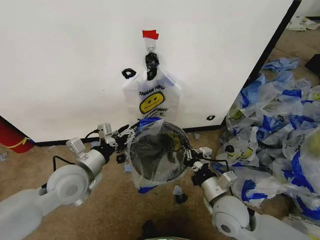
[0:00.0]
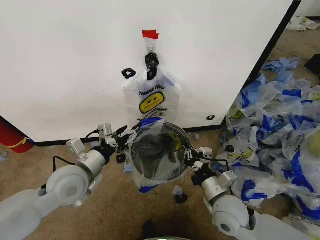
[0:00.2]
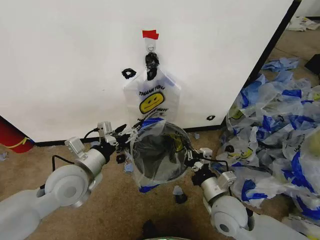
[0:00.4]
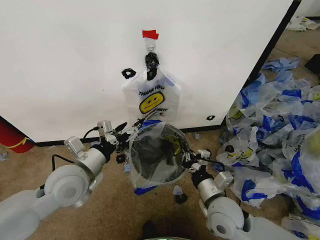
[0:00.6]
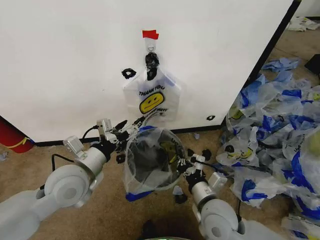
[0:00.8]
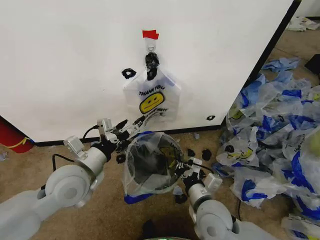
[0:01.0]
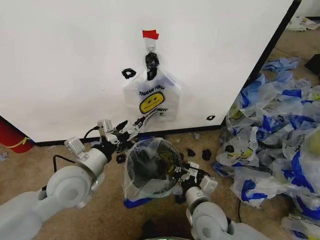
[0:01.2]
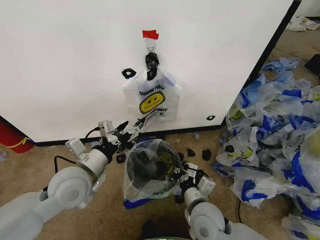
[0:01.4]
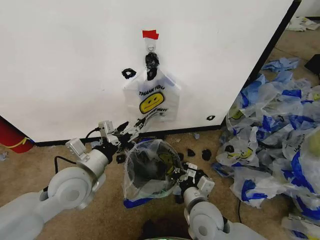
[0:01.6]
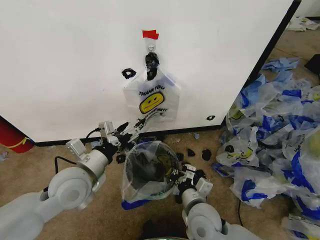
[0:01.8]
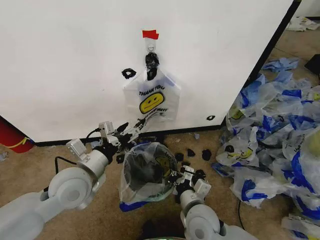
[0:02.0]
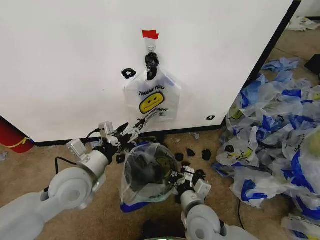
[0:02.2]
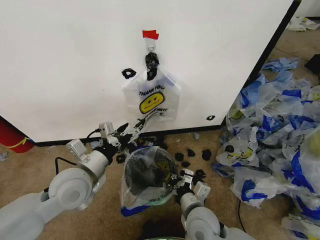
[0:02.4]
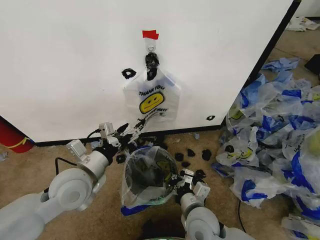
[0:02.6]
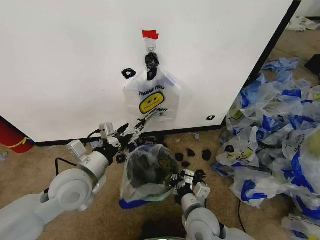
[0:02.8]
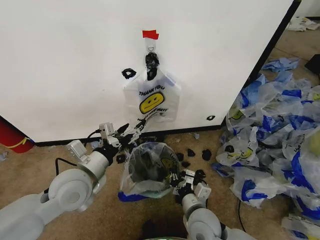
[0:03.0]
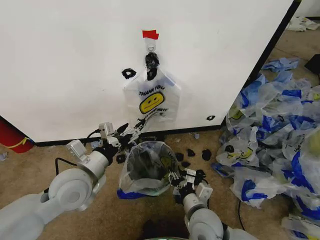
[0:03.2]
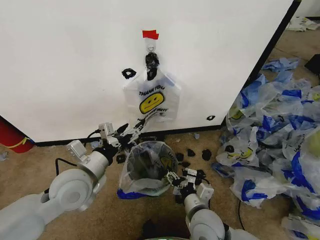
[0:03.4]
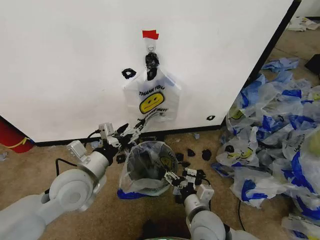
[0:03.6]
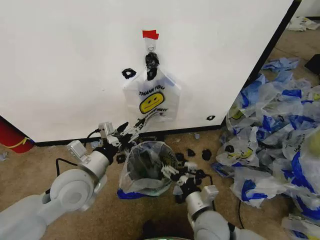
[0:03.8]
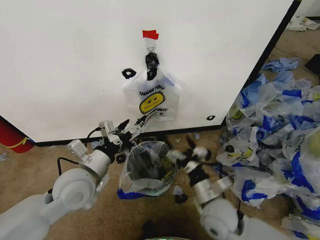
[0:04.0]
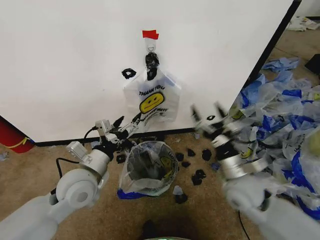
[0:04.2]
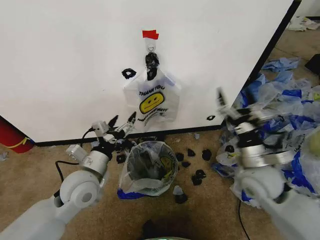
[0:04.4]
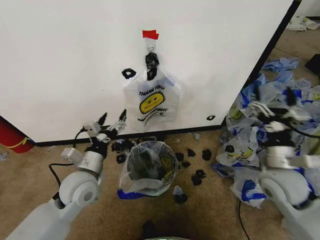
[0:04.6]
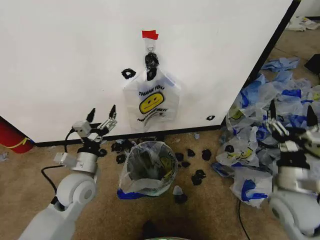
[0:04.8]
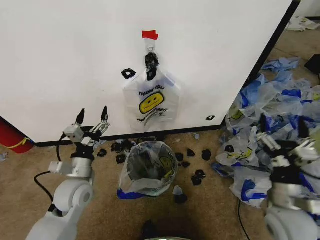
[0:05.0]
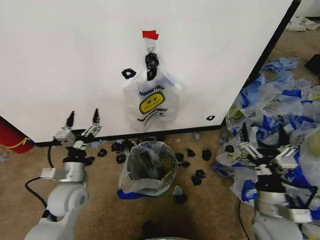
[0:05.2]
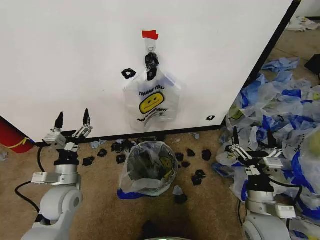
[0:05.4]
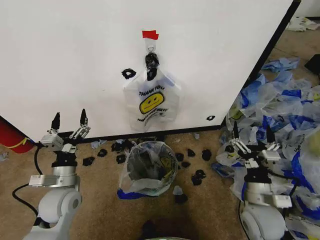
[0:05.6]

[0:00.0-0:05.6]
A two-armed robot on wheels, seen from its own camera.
Task of the whole recording: Pick up the garbage bag from the wall and place it over the trash bin.
0:00.0 to 0:01.4: The right gripper shifts some 5 cm to the left.
0:01.4 to 0:02.8: There are only small adjustments of the grippers.
0:02.8 to 0:04.2: The right gripper is displaced to the right, upward and forward by about 15 cm, and opens.
0:04.2 to 0:05.6: The right gripper moves backward and to the right, approximately 10 cm. The left gripper travels downward and to the left by about 10 cm.

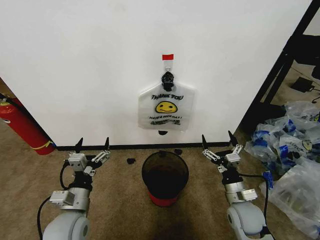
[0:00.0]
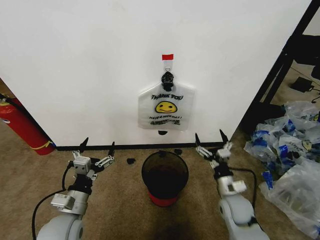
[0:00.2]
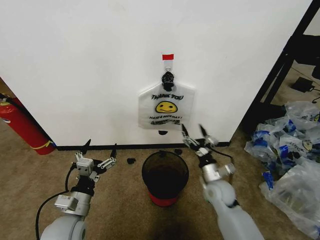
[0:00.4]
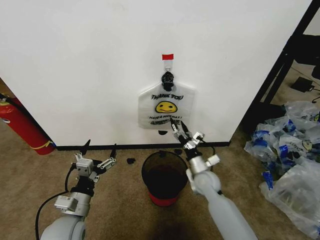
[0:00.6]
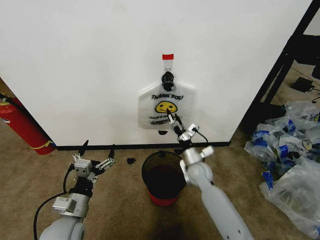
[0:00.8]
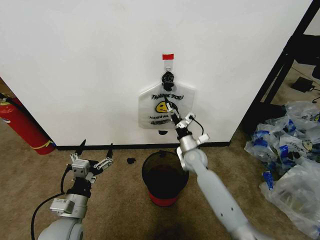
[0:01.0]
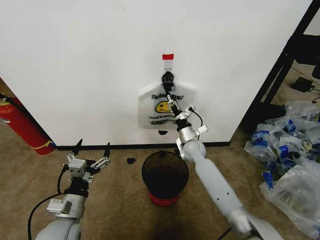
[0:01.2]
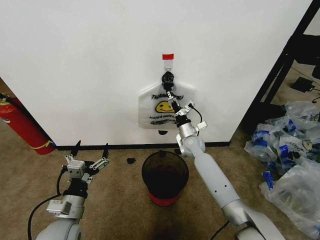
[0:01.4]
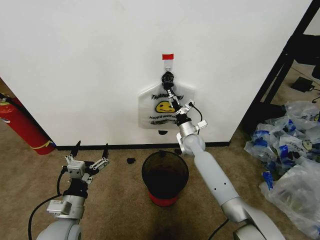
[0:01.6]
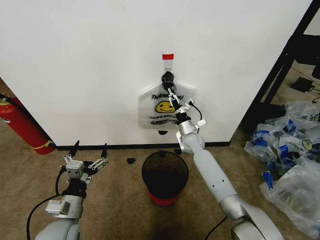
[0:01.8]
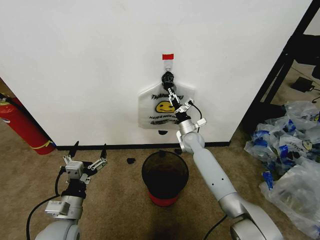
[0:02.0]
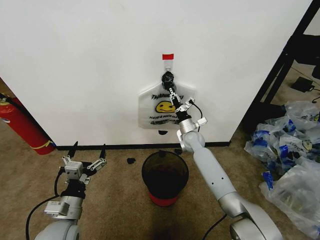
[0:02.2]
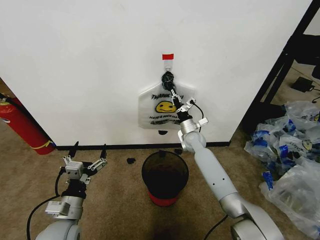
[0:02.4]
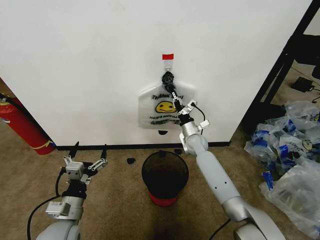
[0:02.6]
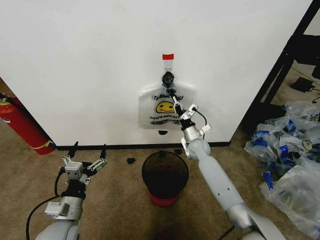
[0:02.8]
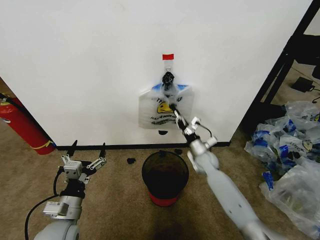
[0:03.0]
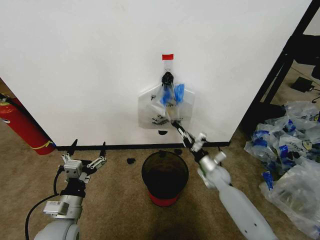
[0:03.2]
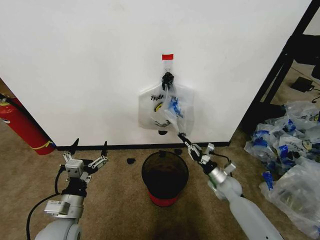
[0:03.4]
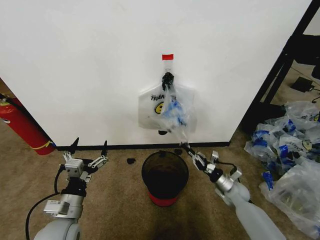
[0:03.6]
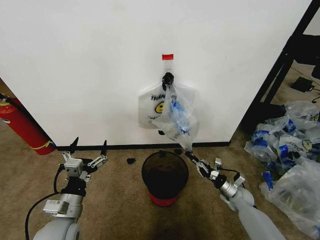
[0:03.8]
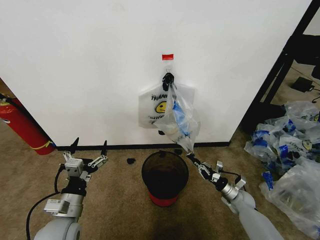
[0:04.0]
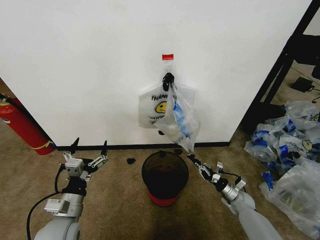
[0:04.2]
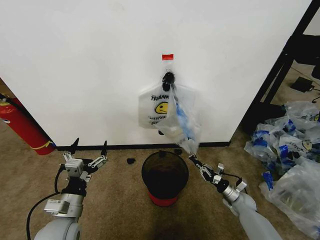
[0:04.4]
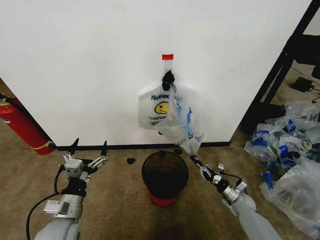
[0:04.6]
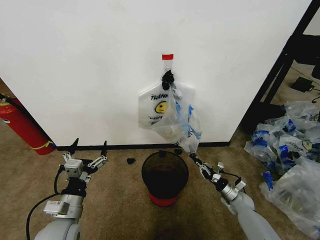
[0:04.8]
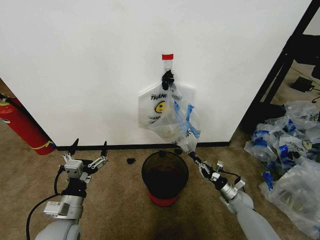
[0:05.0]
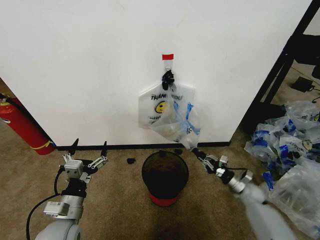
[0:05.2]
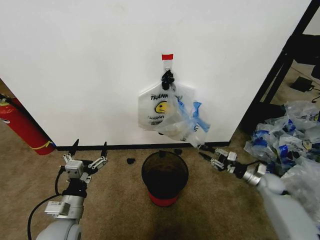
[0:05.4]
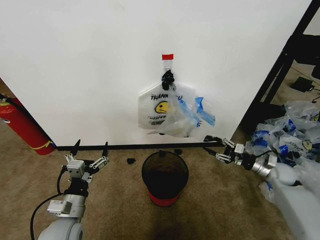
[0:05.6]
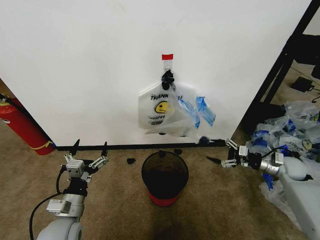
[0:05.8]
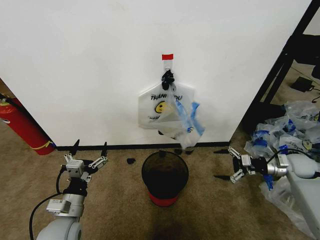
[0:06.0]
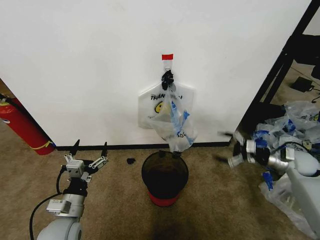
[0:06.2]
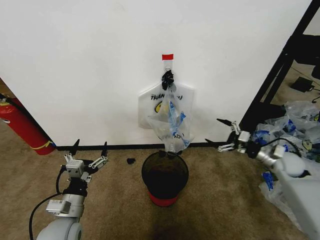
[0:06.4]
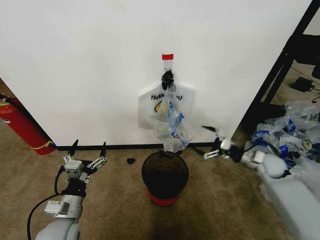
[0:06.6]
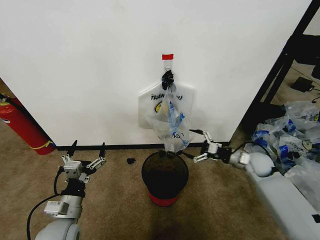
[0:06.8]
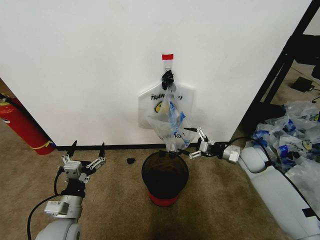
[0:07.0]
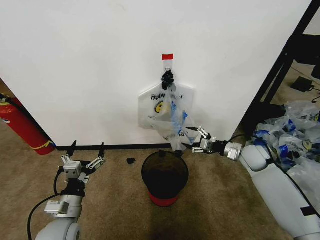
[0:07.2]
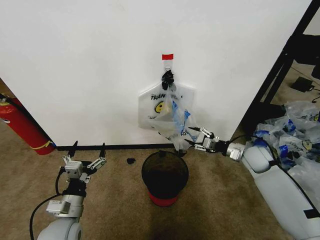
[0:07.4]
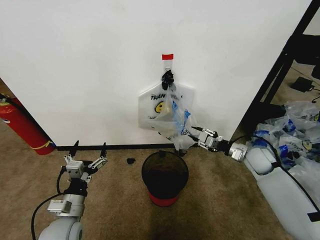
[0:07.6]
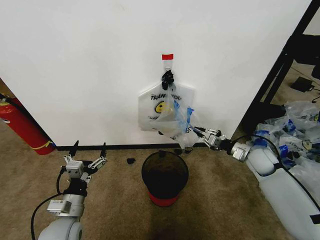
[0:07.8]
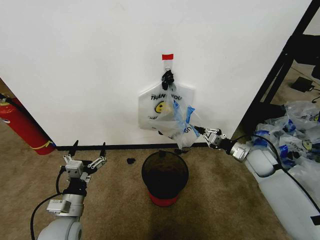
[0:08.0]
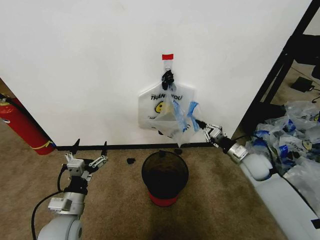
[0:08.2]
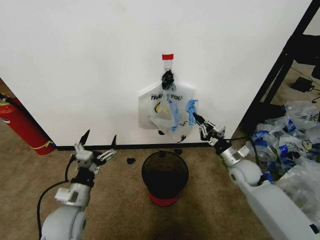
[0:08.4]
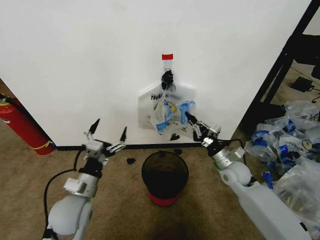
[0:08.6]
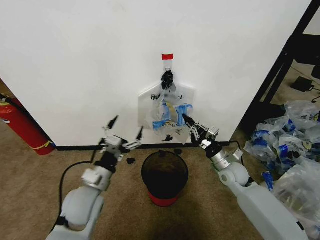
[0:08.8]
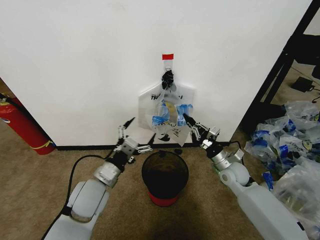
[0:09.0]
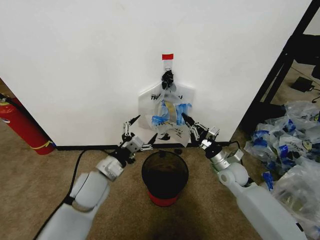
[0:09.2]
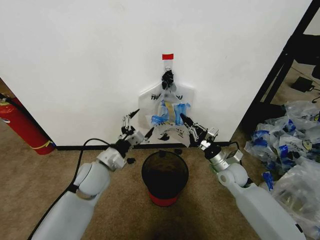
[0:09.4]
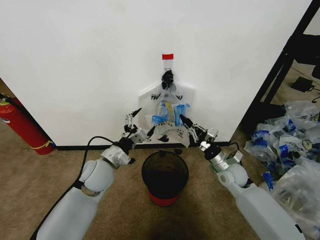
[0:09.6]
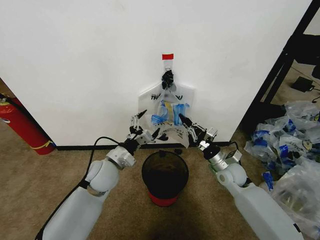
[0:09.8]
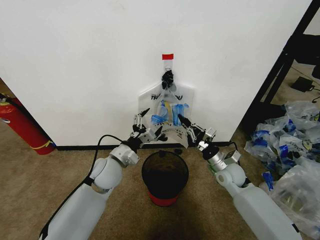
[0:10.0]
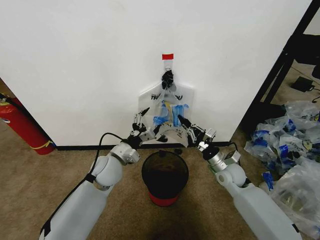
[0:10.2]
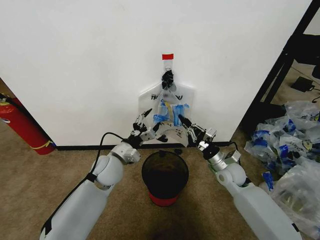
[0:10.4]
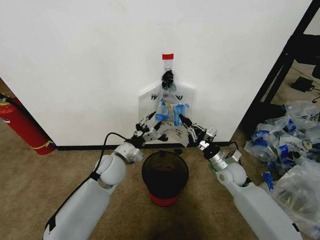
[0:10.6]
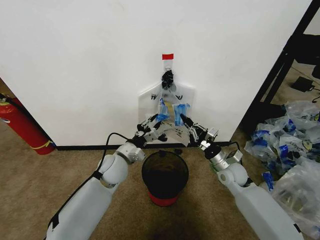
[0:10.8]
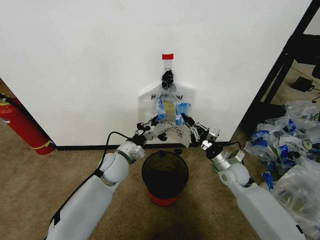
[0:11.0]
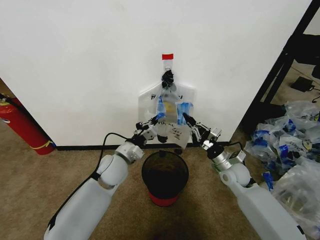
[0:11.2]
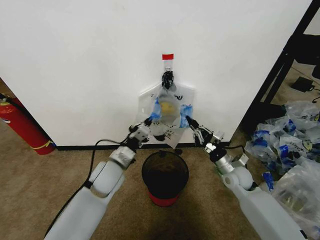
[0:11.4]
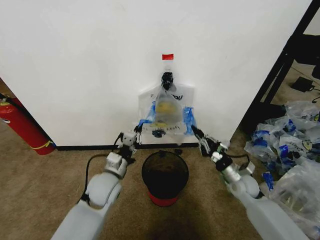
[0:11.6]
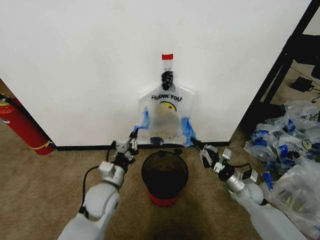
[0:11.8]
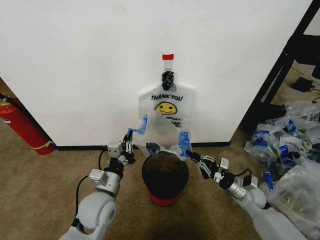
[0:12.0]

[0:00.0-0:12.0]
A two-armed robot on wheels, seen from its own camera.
Task of the whole recording: Pick up the garbage bag from the wall and place it over the trash bin.
0:01.6 to 0:03.0: The right gripper goes approximately 10 cm backward, to the right and downward, and closes up.
0:03.0 to 0:04.4: The right gripper heads to the right, downward and backward, covering about 25 cm.
0:04.4 to 0:06.0: The right gripper moves upward and to the right, some 25 cm, and opens.
0:06.0 to 0:07.6: The right gripper is displaced to the left by approximately 15 cm, and closes up.
0:07.6 to 0:09.0: The right gripper moves to the left, approximately 10 cm; the left gripper travels forward, to the right and upward by some 10 cm.
0:09.0 to 0:10.4: The left gripper heads forward, covering roughly 10 cm.
0:10.4 to 0:12.0: The right gripper heads to the right, downward and backward, covering roughly 10 cm, while the left gripper travels backward by roughly 10 cm, and closes up.

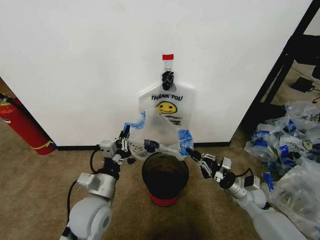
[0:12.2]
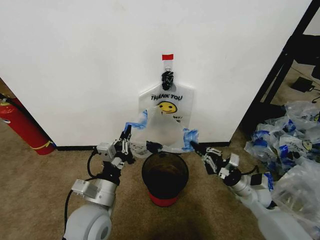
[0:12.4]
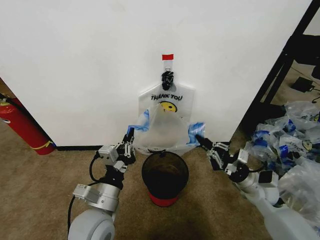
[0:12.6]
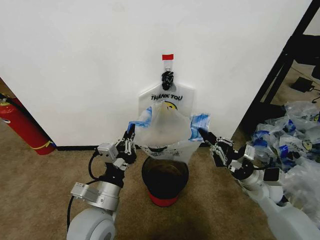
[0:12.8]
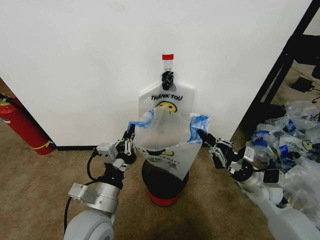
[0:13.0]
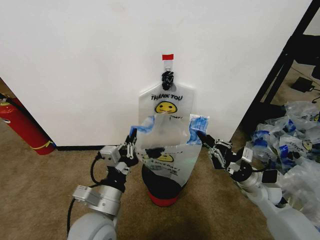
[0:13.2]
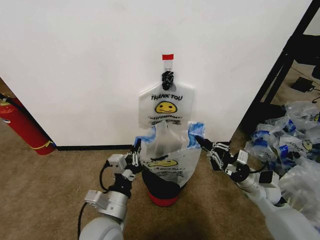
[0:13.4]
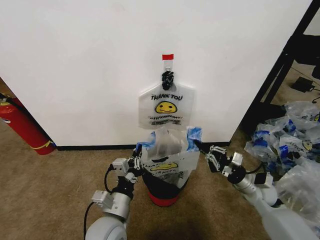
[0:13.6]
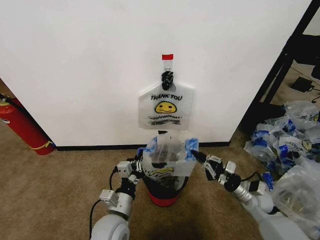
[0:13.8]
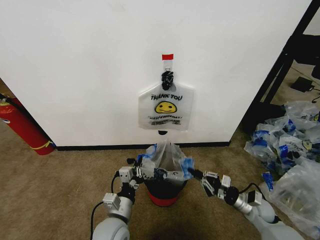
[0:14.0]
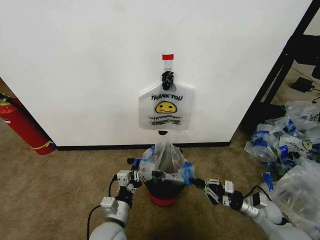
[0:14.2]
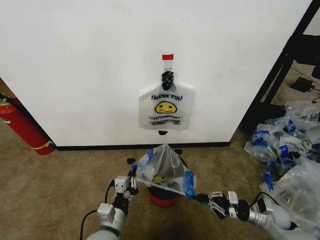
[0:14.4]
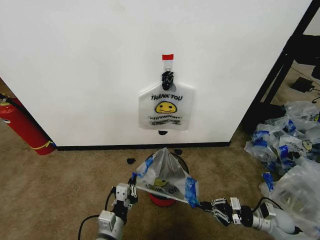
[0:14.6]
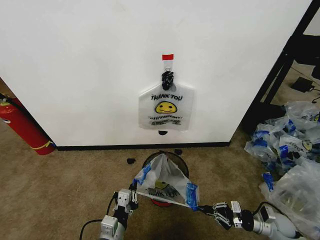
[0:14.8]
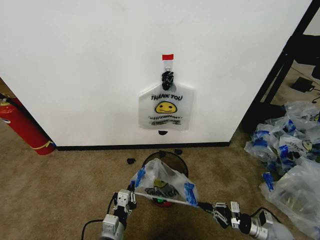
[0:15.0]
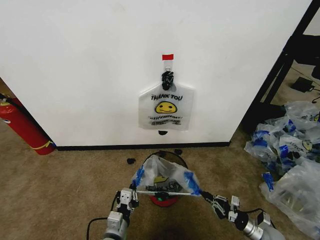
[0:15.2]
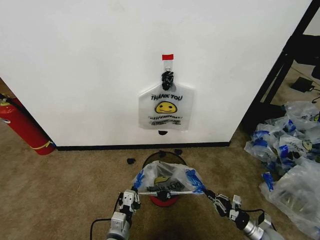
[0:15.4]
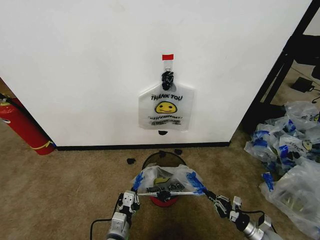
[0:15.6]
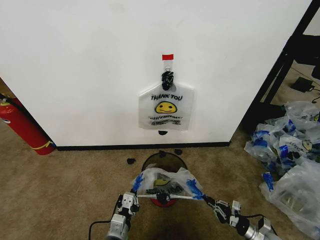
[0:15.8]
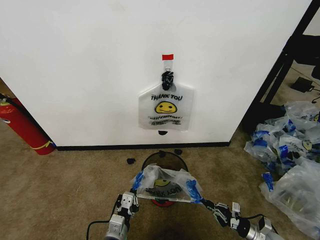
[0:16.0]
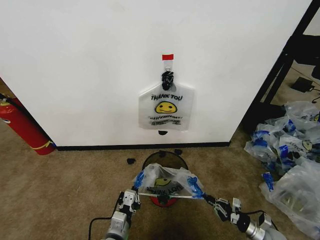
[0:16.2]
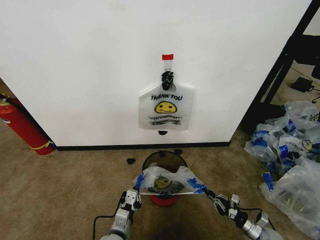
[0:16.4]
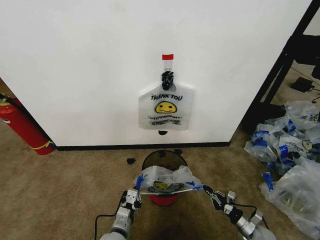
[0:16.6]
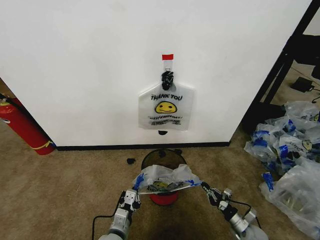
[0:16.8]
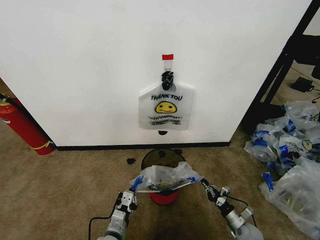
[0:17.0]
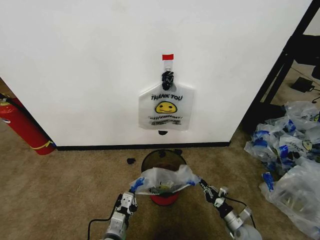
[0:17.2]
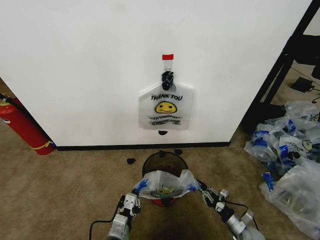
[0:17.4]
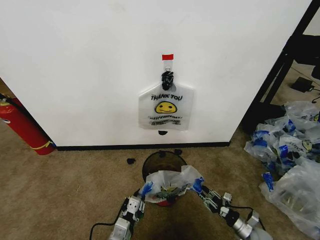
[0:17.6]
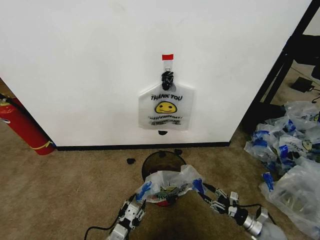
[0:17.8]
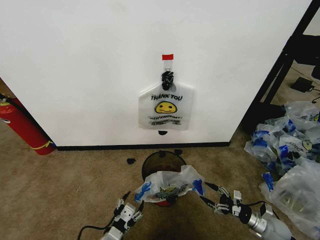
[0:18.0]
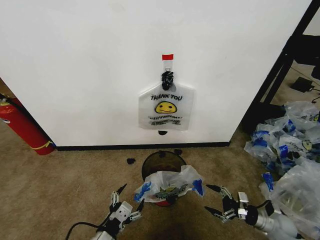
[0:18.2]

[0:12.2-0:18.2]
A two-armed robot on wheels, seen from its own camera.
Task of the whole recording: Pick up the garbage bag from the wall and place it over the trash bin.
0:12.2 to 0:13.8: The right gripper reaches about 10 cm upward, then returns, while the left gripper travels downward by approximately 10 cm.
0:13.8 to 0:15.2: The left gripper heads downward, covering roughly 5 cm; the right gripper heads downward, backward and to the right, covering approximately 15 cm.
0:15.2 to 0:16.6: The grippers move only a little.
0:16.6 to 0:18.2: The right gripper goes some 10 cm upward, and opens up; the left gripper heads upward, backward and to the left, covering about 10 cm, and opens.
